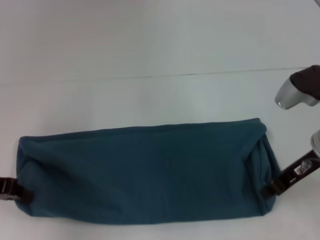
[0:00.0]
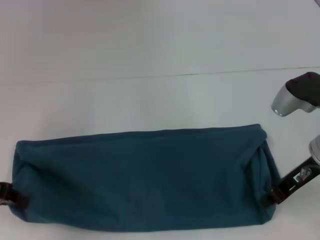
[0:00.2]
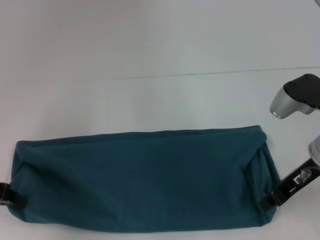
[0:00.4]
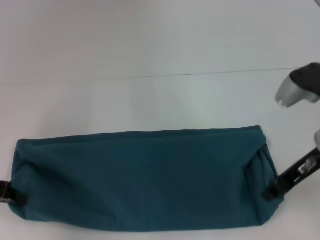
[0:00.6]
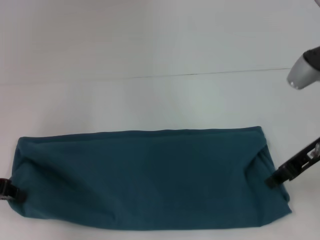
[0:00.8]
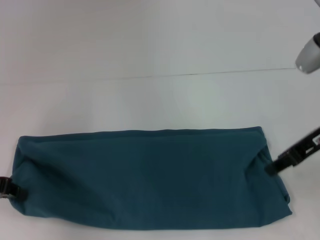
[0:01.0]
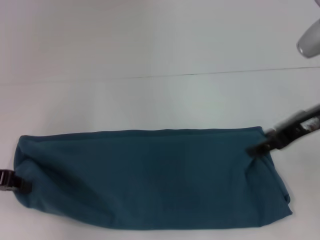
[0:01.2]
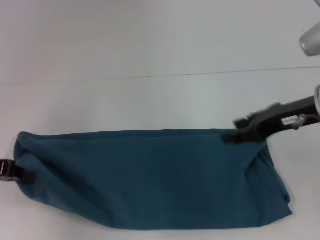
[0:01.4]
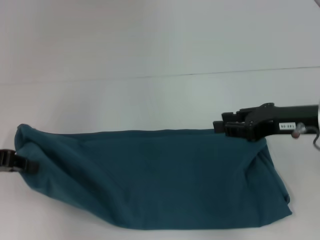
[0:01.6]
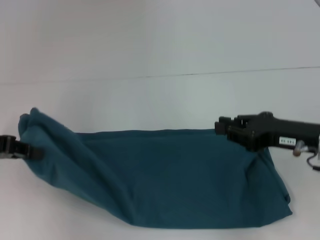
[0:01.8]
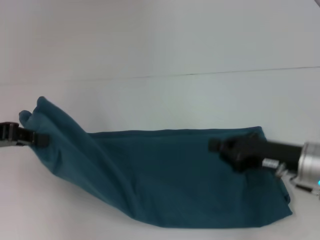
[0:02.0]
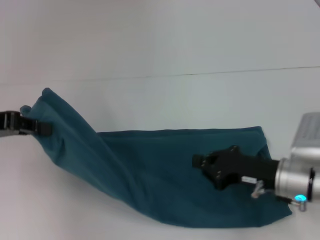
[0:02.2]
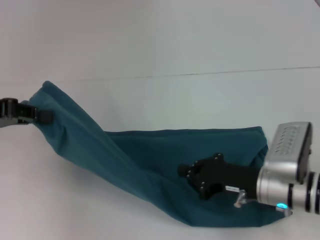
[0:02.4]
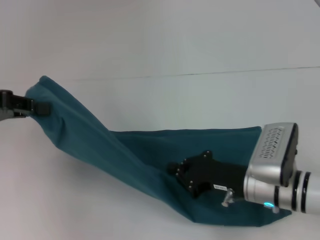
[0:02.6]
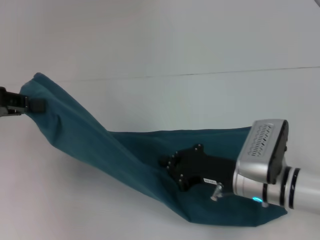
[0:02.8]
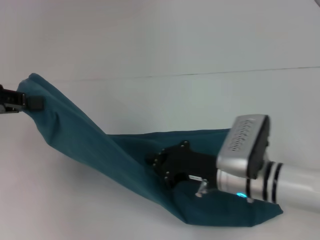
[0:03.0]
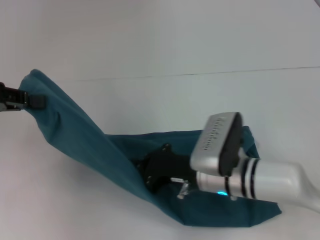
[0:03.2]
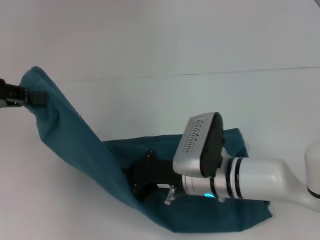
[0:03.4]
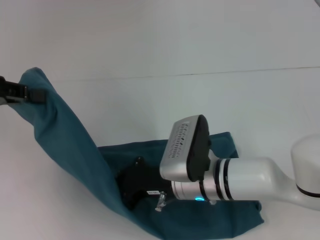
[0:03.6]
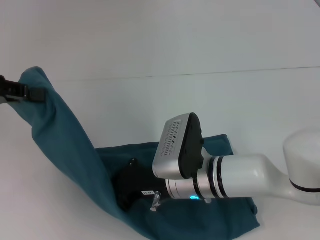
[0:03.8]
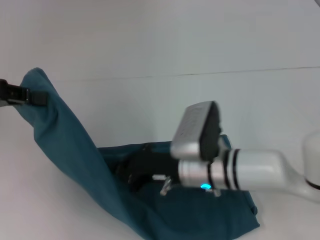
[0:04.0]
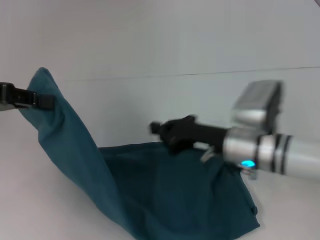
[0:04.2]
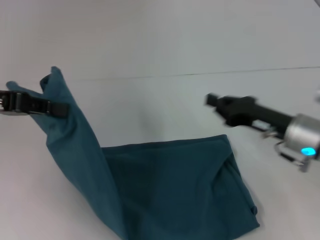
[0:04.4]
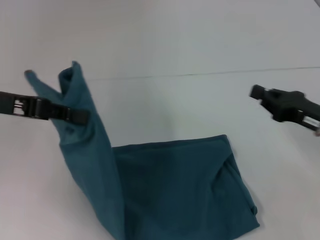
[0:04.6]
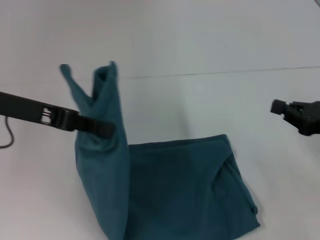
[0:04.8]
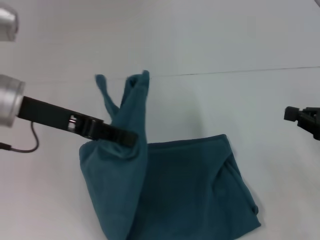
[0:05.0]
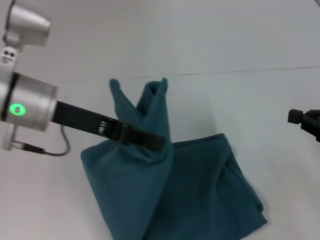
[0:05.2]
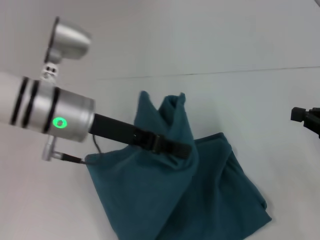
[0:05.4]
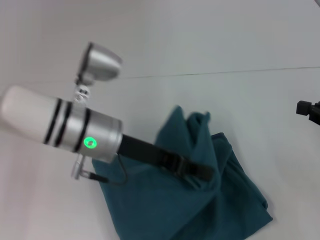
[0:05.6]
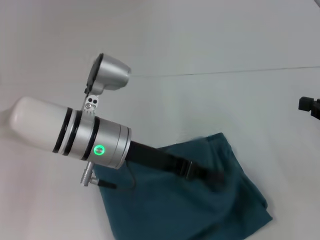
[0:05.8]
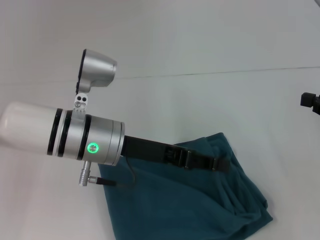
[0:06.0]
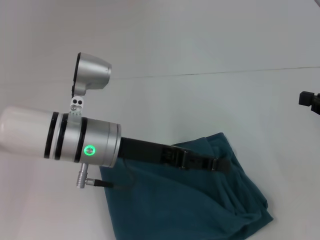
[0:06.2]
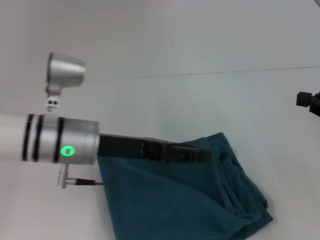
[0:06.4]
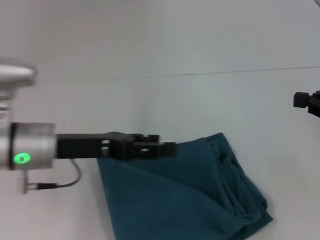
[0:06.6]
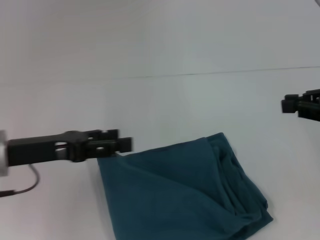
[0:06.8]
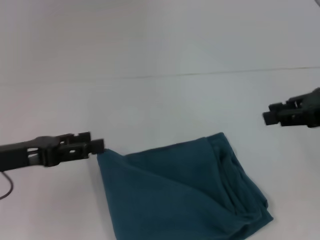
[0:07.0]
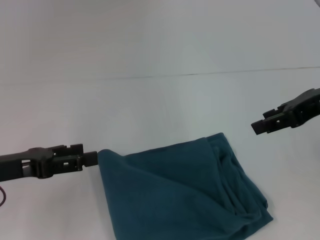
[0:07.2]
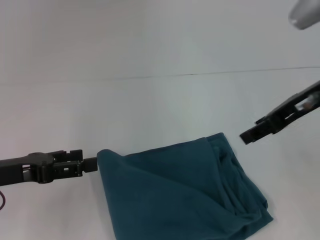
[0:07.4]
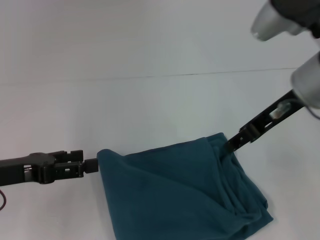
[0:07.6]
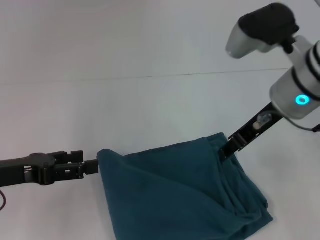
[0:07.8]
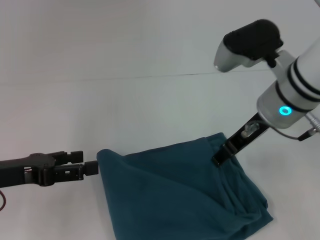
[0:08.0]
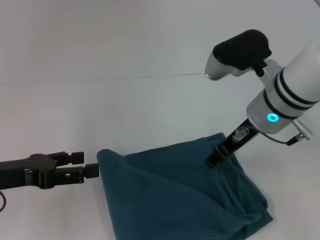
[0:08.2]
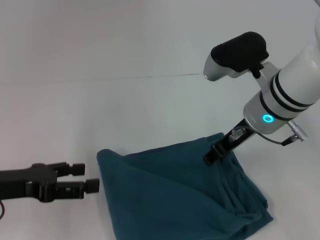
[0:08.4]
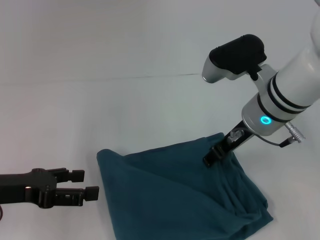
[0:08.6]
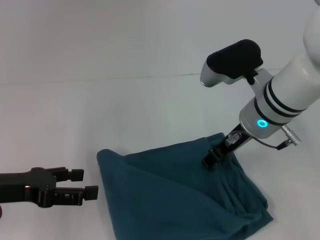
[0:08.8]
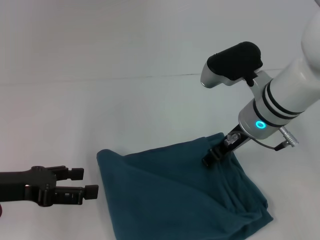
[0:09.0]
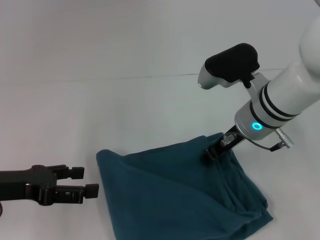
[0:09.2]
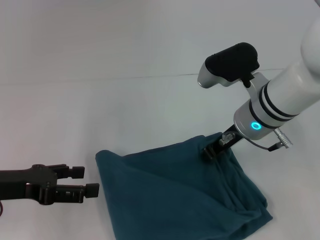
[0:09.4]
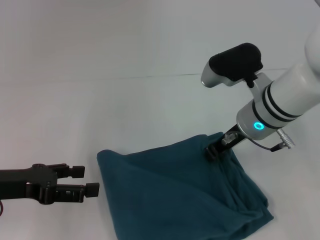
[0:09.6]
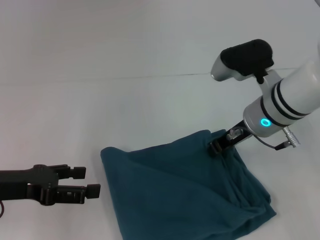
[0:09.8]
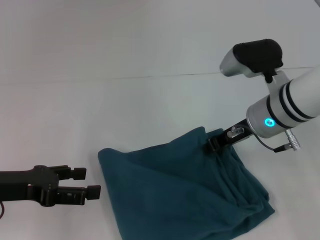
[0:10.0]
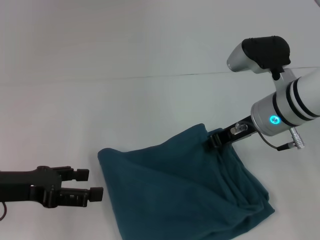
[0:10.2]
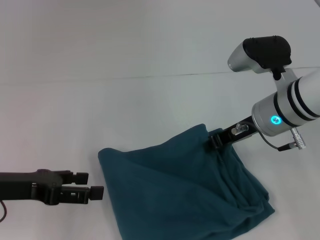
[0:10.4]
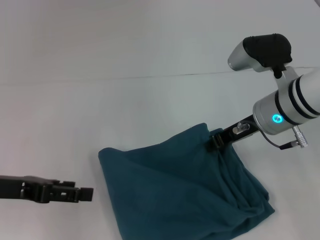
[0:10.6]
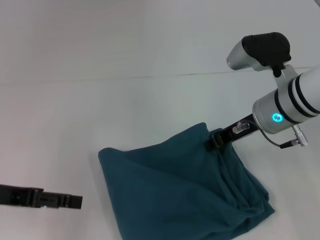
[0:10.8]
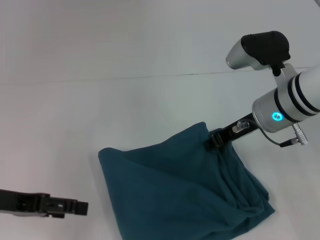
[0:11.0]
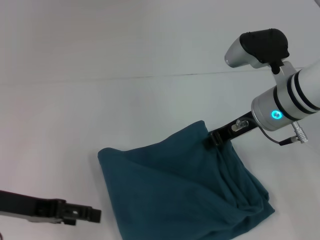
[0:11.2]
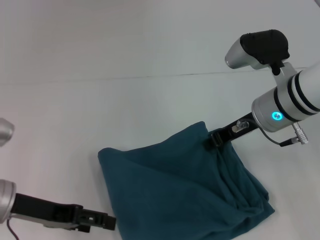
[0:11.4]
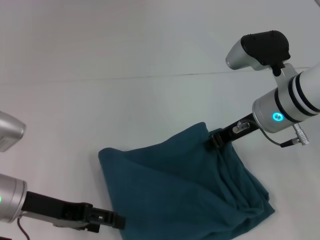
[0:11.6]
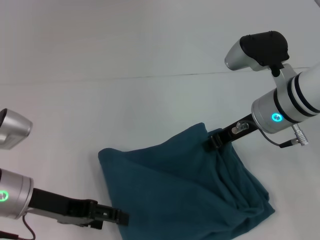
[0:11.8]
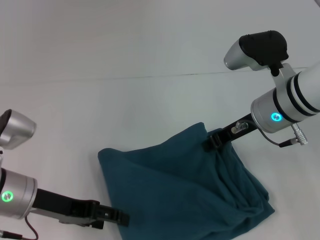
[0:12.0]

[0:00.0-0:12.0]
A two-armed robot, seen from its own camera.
Step, 0:00.0 to 0:03.8: Press the middle of the clothes with your right hand.
Step, 0:04.0 to 0:05.8: Fold the clothes to the left.
0:00.0 to 0:01.6: The right gripper opens.
0:01.6 to 0:03.0: The right gripper heads downward and to the left, covering approximately 15 cm, and closes its fingers. The left gripper moves upward, about 5 cm.
0:03.0 to 0:04.4: The right gripper shifts roughly 10 cm to the right.
0:04.4 to 0:06.0: The left gripper travels to the right and downward by about 20 cm. The right gripper heads to the right and upward, covering approximately 15 cm.
0:06.0 to 0:07.6: The left gripper goes approximately 20 cm to the left, and opens. The right gripper is displaced to the left and upward by some 20 cm, and opens up.
0:07.6 to 0:09.0: The right gripper heads downward, covering roughly 10 cm.
0:09.0 to 0:10.4: The right gripper closes its fingers.
0:10.4 to 0:12.0: The left gripper travels to the right by approximately 5 cm.

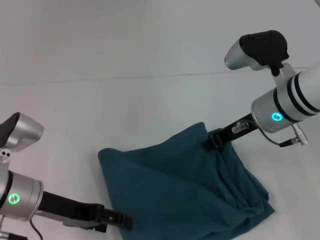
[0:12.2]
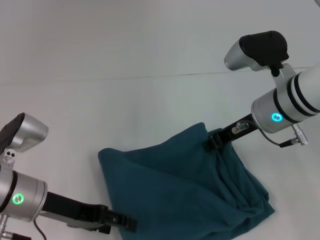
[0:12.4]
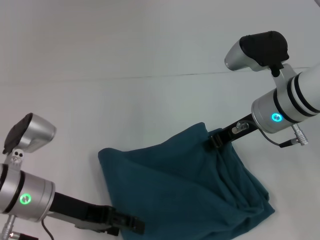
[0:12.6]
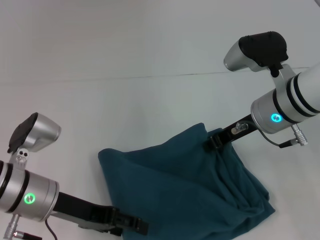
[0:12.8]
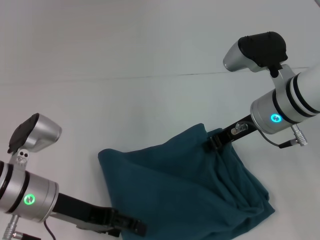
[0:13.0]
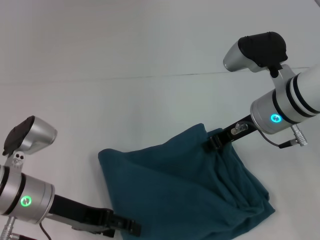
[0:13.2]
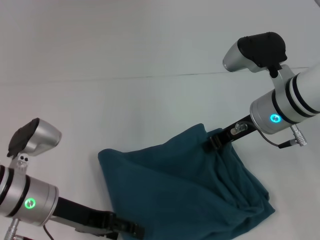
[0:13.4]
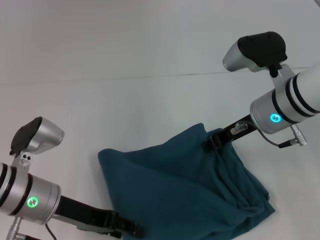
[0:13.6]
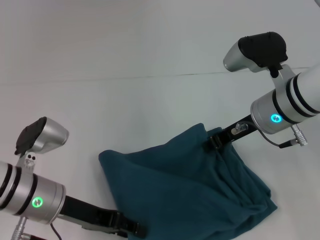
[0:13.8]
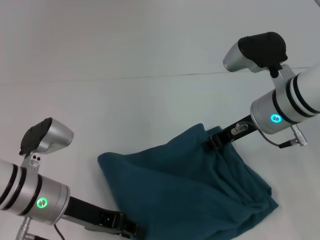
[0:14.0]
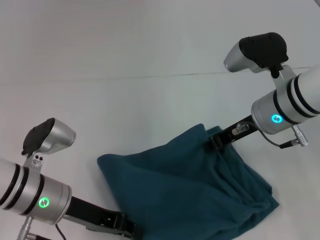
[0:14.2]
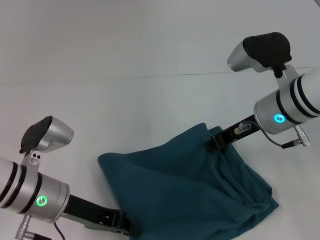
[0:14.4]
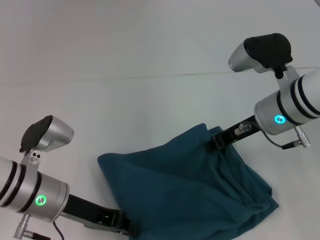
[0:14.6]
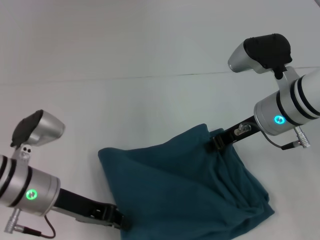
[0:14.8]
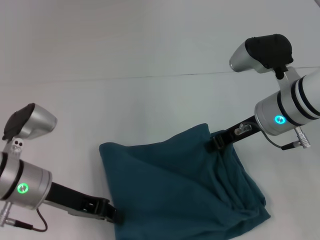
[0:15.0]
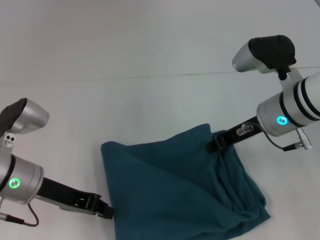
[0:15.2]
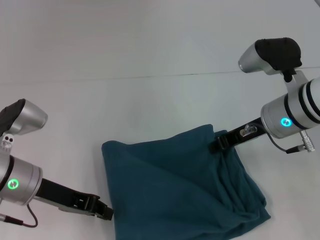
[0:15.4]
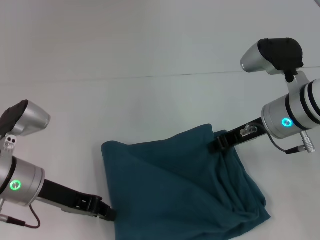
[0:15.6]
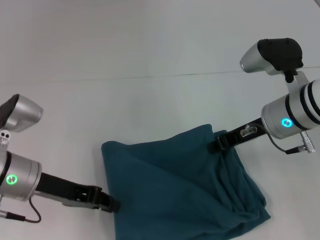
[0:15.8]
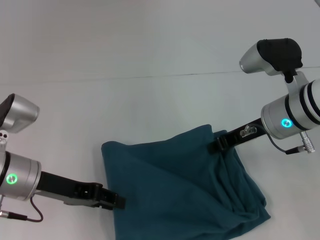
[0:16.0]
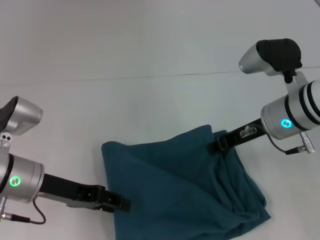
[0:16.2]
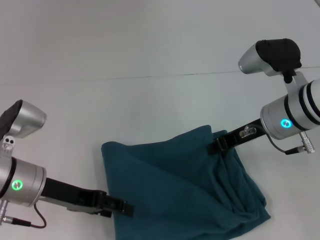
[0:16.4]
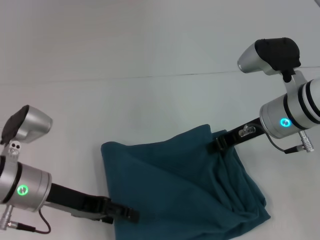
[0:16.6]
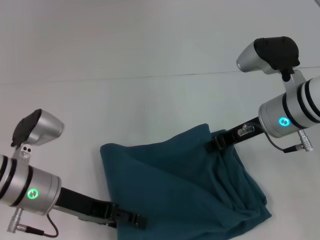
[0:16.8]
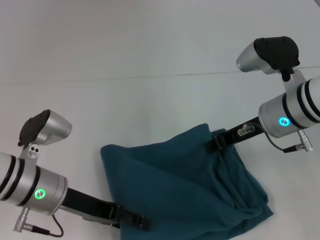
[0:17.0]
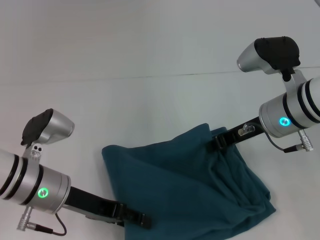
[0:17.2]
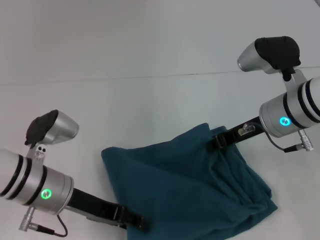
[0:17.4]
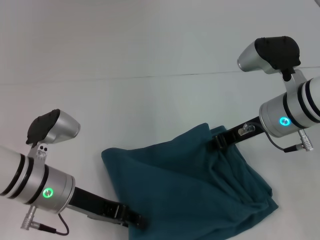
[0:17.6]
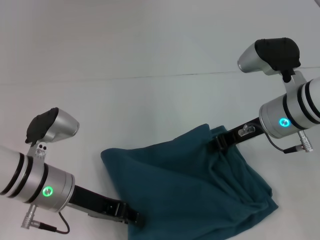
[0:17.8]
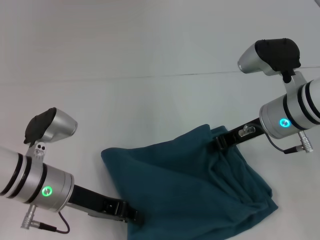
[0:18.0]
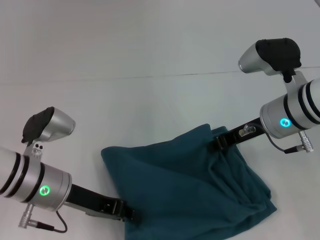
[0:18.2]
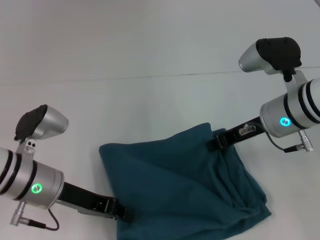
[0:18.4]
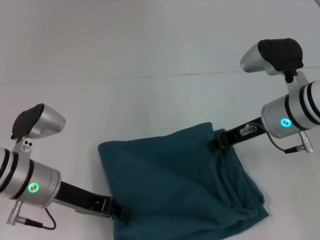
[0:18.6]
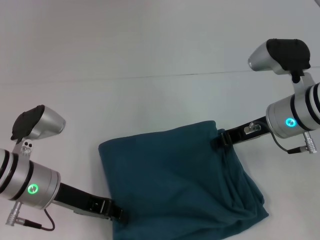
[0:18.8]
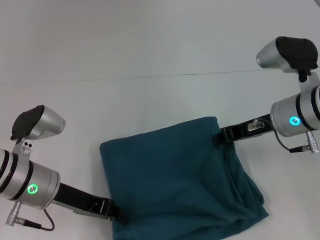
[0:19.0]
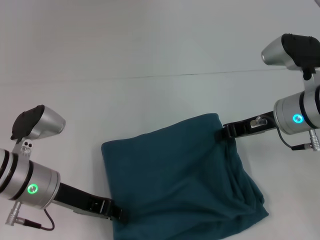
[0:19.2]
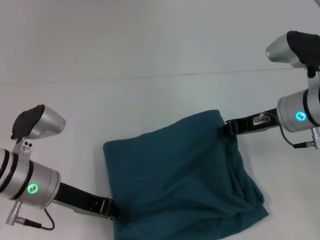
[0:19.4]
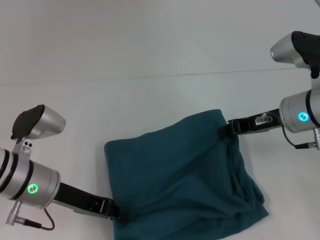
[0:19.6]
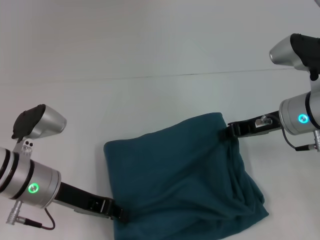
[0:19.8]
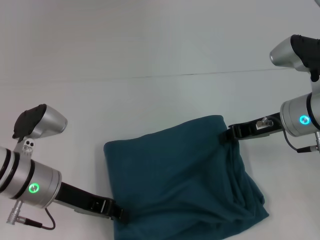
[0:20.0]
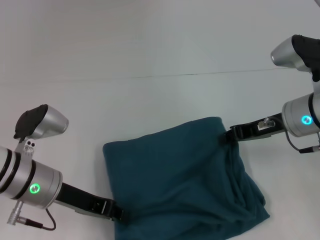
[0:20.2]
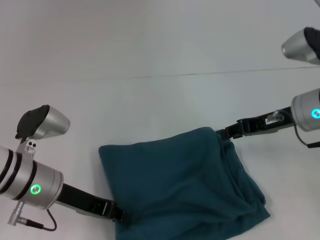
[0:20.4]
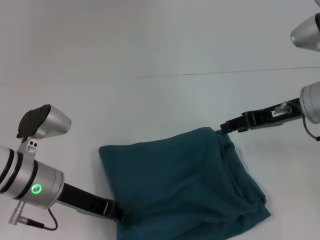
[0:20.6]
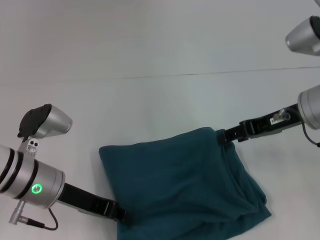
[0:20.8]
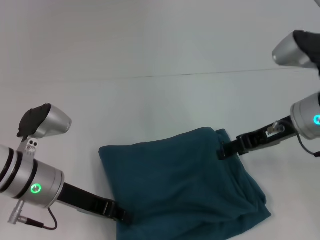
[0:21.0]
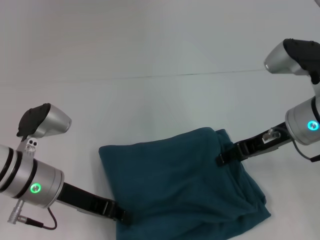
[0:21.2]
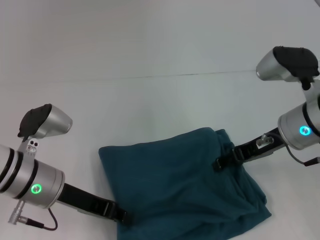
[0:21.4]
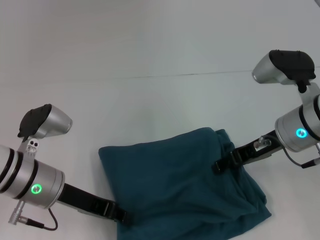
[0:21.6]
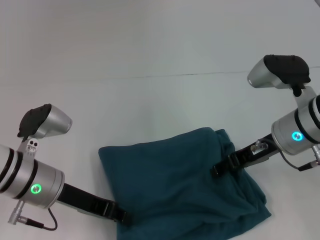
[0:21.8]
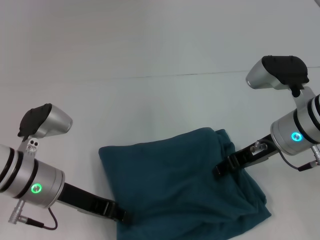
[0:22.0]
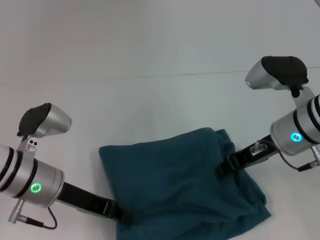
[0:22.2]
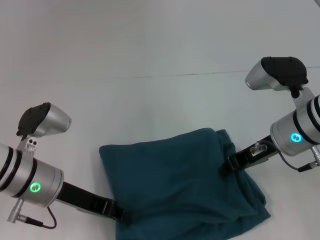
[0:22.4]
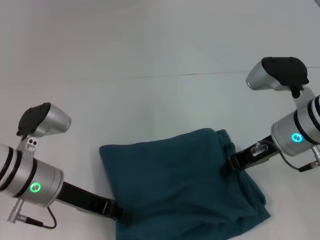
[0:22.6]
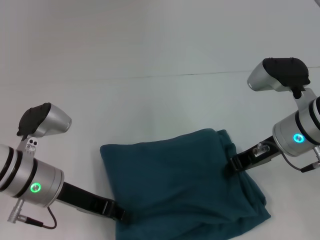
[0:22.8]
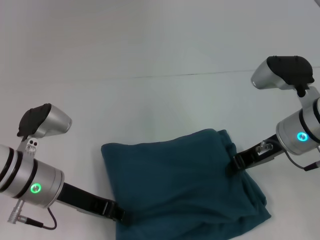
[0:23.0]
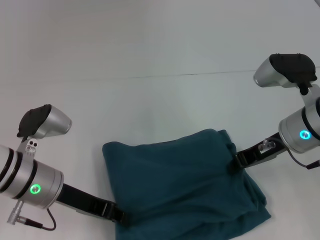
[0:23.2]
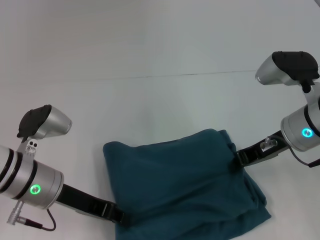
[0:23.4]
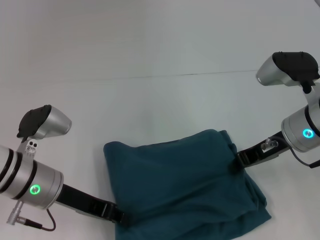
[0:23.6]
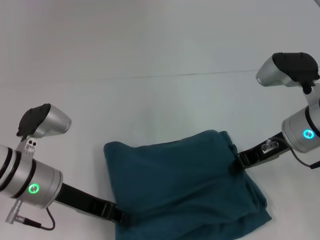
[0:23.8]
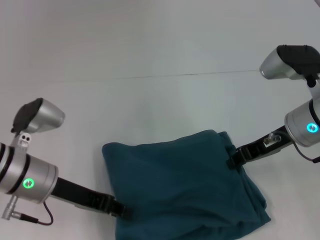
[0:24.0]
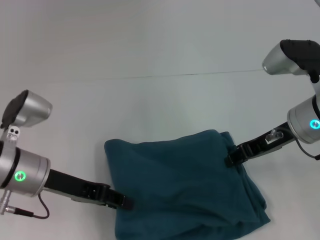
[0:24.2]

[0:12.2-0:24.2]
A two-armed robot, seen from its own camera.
0:12.2 to 0:13.8: The grippers move only a little.
0:13.8 to 0:15.2: The left gripper closes.
0:15.2 to 0:16.6: The left gripper opens up.
0:16.6 to 0:18.2: The left gripper closes its fingers.
0:18.2 to 0:19.8: The grippers stay close to where they were, moving slightly.
0:19.8 to 0:21.2: The right gripper opens its fingers.
0:21.2 to 0:22.6: The right gripper closes its fingers.
0:22.6 to 0:24.2: There are only small adjustments of the grippers.
